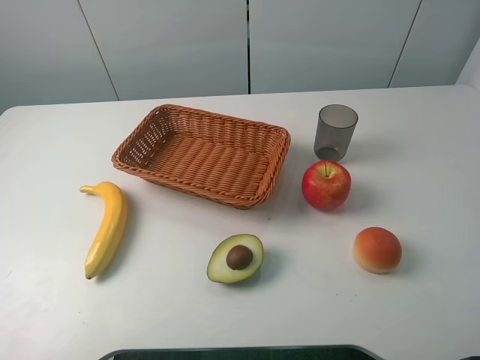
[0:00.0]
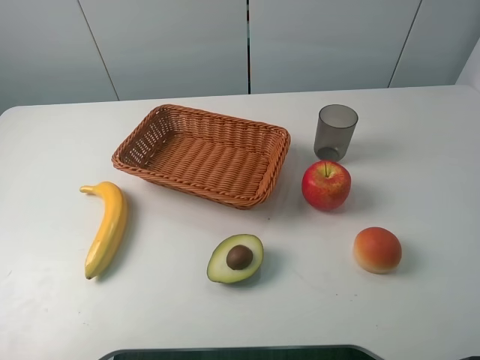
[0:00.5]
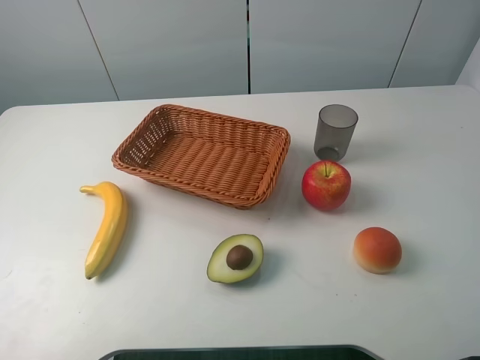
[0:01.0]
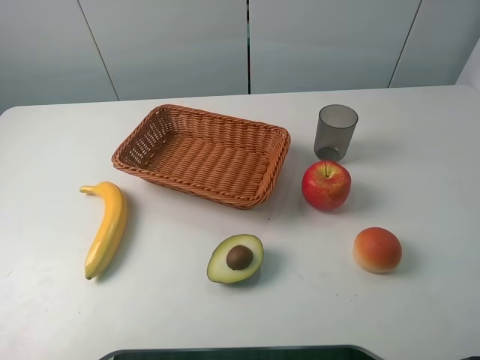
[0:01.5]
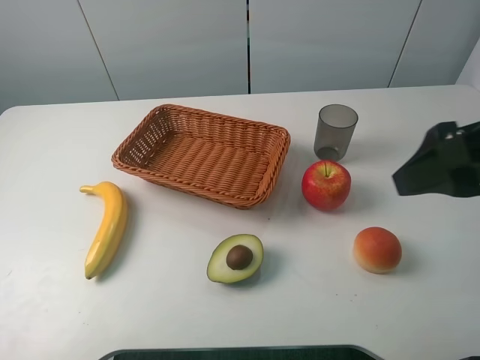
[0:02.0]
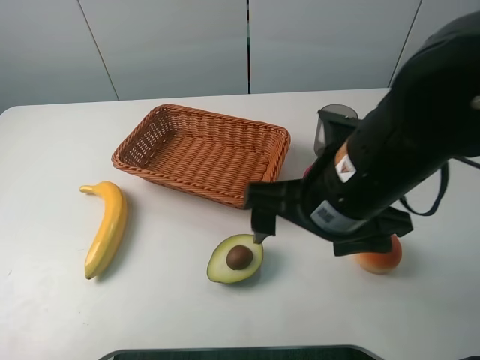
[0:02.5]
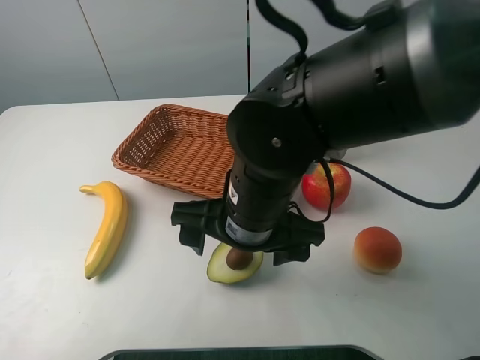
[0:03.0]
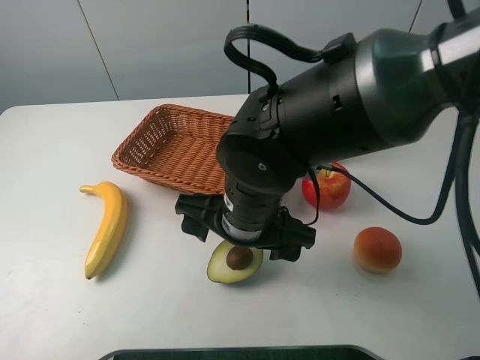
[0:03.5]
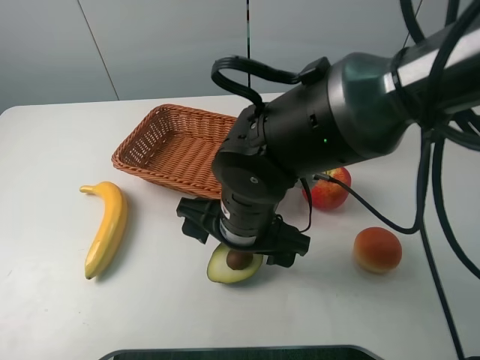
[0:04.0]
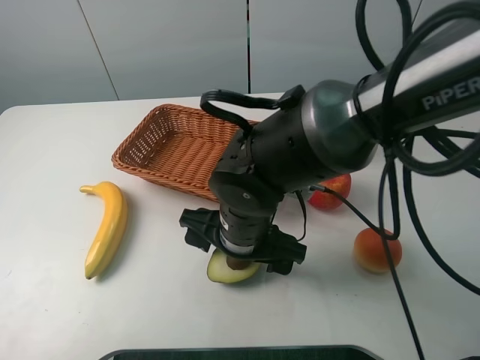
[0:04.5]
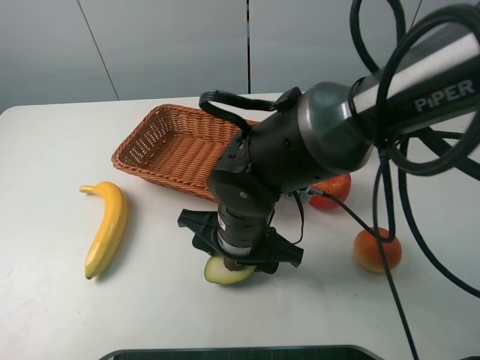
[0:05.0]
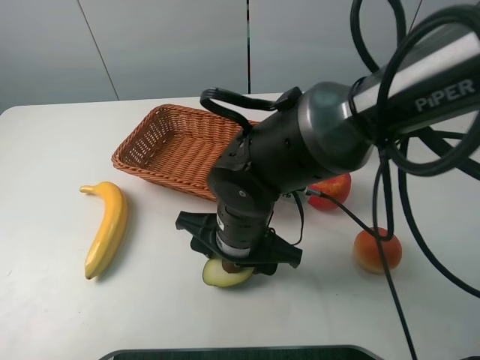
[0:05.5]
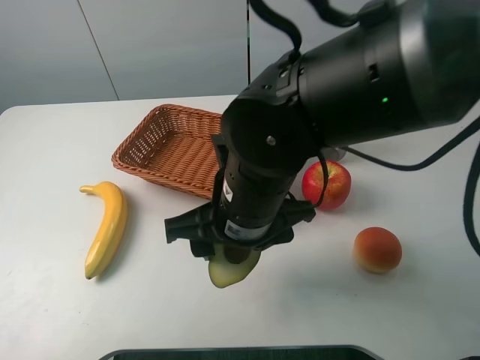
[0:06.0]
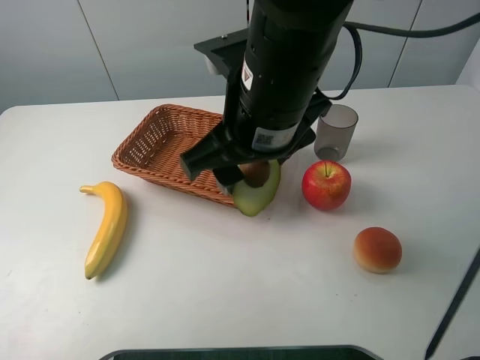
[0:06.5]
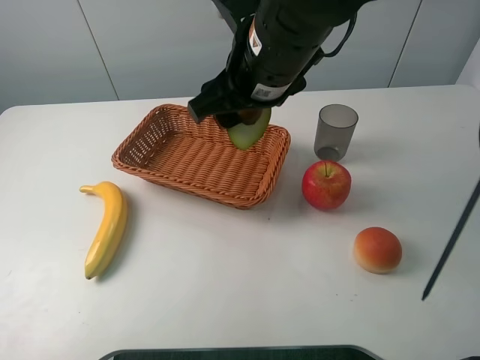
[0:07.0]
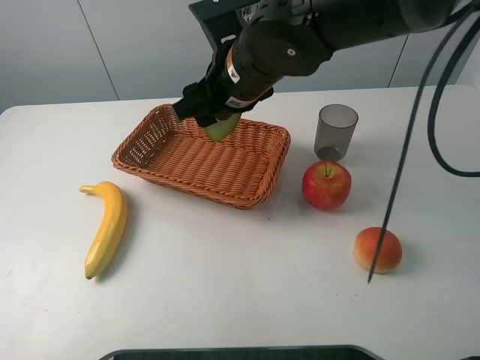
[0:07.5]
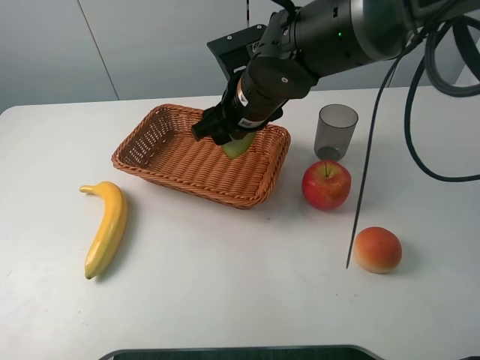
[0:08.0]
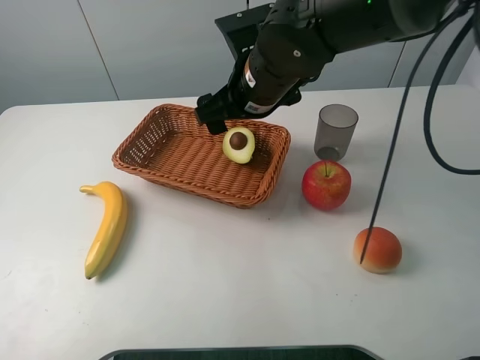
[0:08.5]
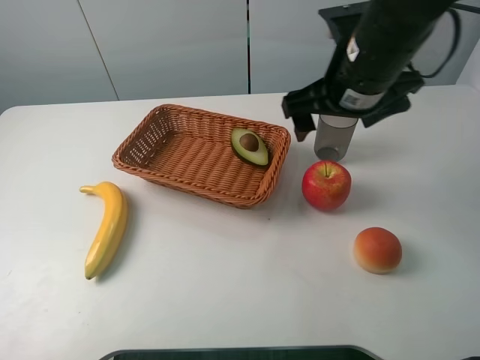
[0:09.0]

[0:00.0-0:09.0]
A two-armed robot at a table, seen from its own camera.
Task of the whole recording: randomly pick up an item from the table and put it in the basket.
Step, 0:00.0 to 0:05.5: Grasp the avocado with the right gripper.
Step, 0:06.0 to 0:08.5: Place the avocado into the basket with the right gripper.
0:00.0 to 0:02.0: The right gripper heads forward and to the left, covering some 15 cm.
0:02.0 to 0:04.5: The right gripper moves to the left and downward, about 30 cm.
0:04.5 to 0:07.0: The right gripper is displaced upward and forward by roughly 15 cm, and closes its fingers.
0:07.0 to 0:09.0: The right gripper shifts about 10 cm to the right, and opens.

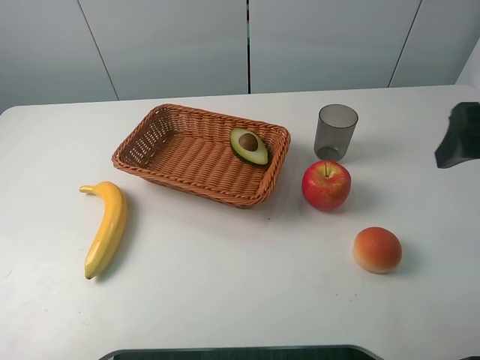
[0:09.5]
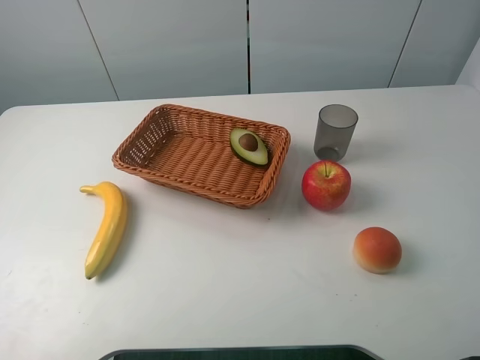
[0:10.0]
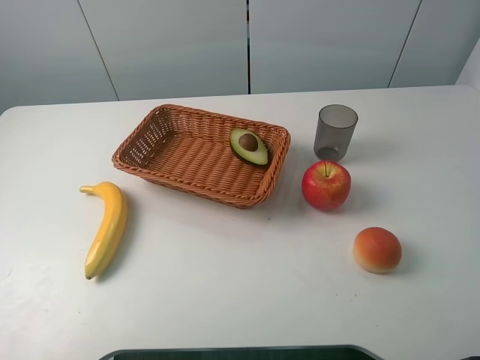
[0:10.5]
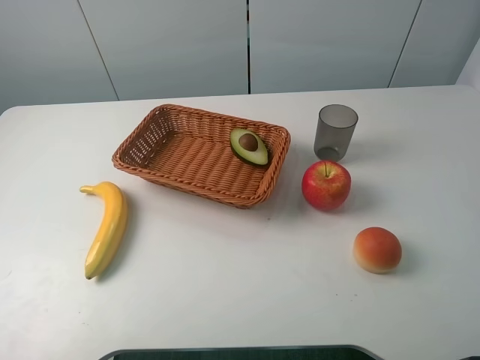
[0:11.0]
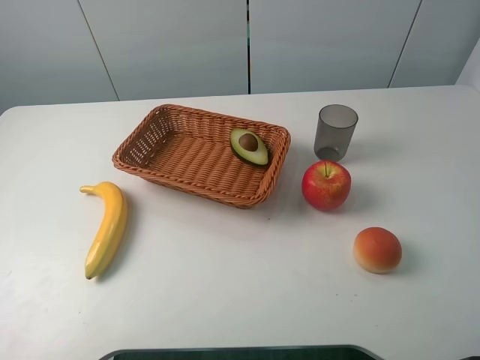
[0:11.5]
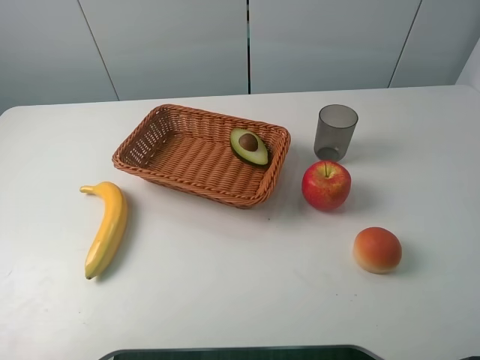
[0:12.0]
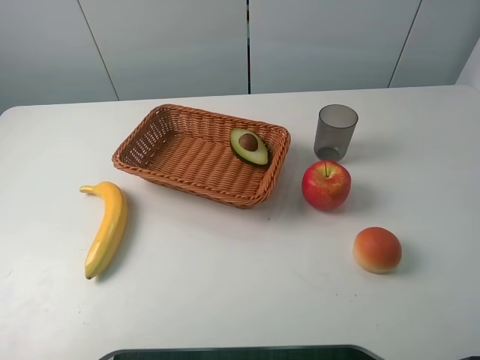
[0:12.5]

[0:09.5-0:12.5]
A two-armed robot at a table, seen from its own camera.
Task of the whole recording: randomly pick up an item from the table and put it in the basket.
0:09.5 to 0:11.0: The right gripper moves backward, roughly 15 cm.
